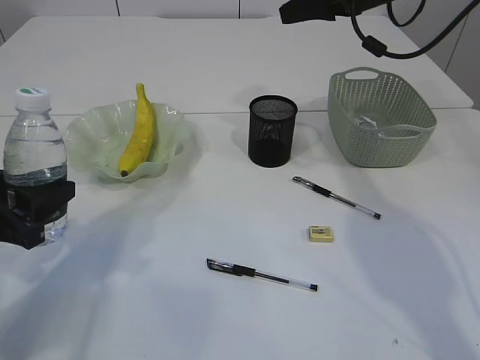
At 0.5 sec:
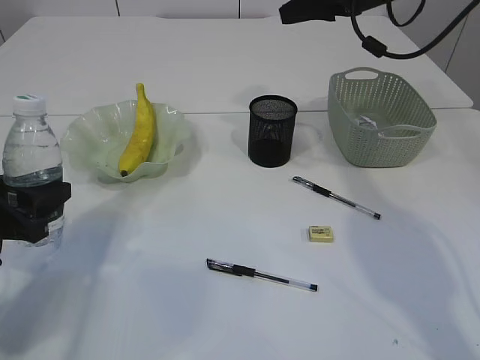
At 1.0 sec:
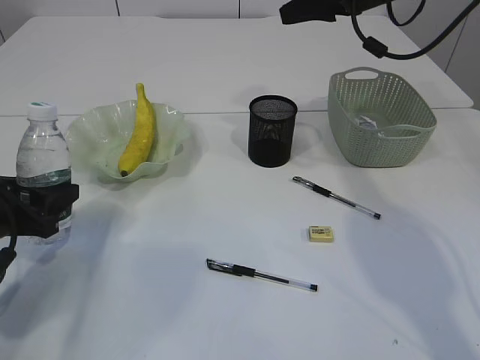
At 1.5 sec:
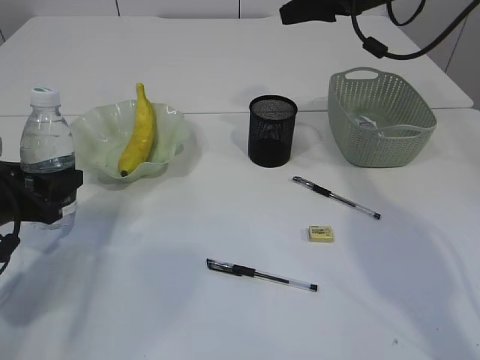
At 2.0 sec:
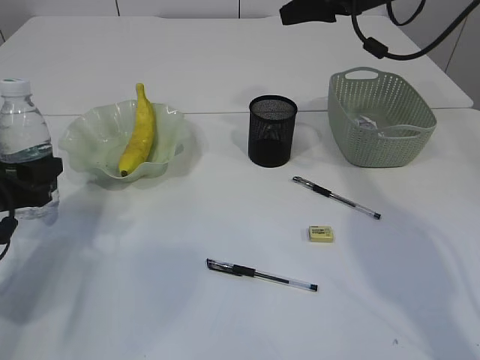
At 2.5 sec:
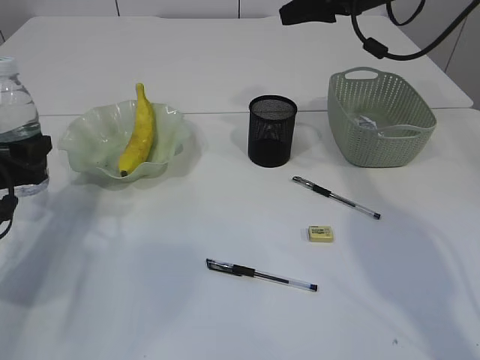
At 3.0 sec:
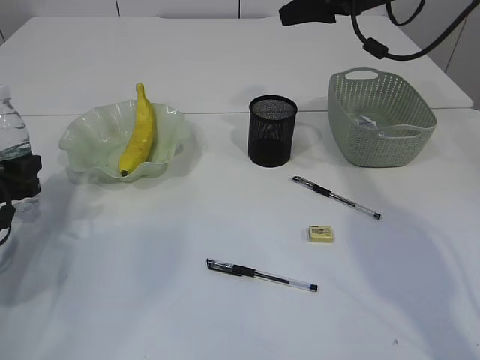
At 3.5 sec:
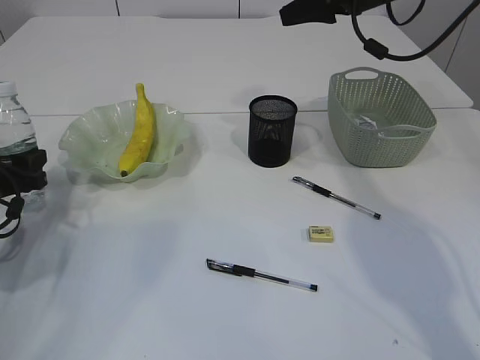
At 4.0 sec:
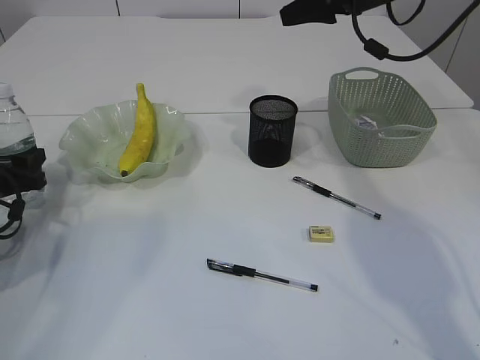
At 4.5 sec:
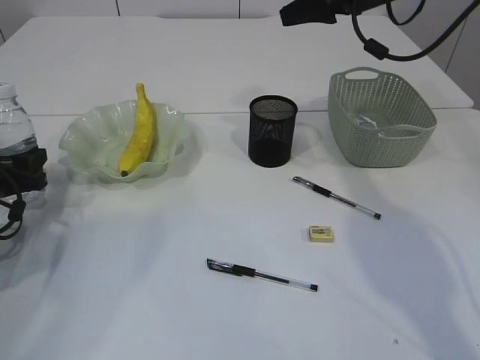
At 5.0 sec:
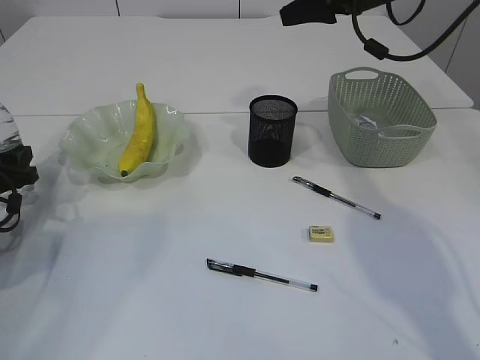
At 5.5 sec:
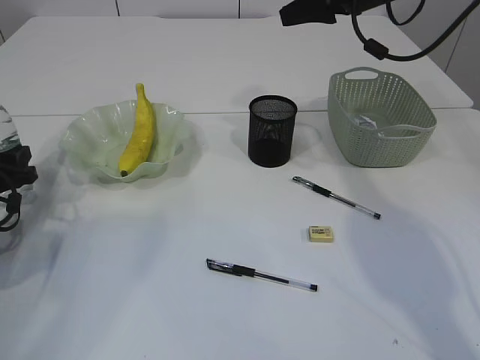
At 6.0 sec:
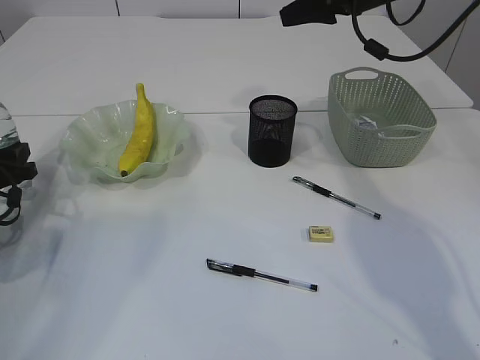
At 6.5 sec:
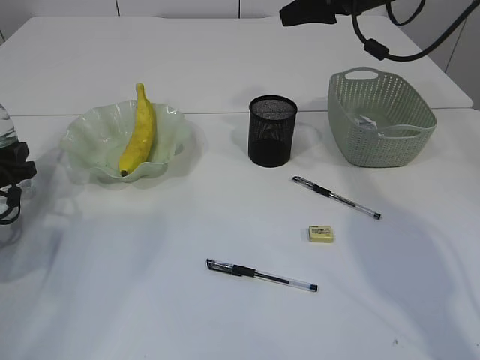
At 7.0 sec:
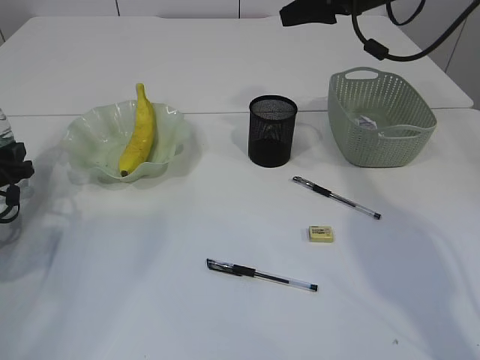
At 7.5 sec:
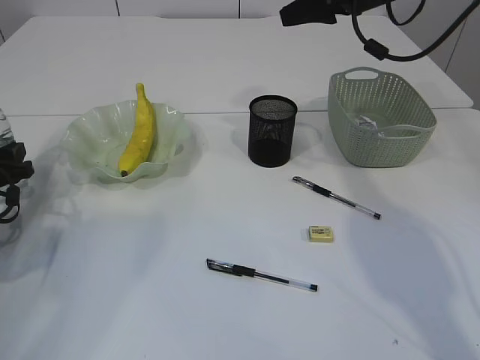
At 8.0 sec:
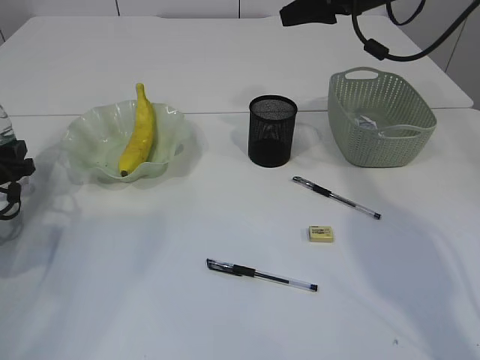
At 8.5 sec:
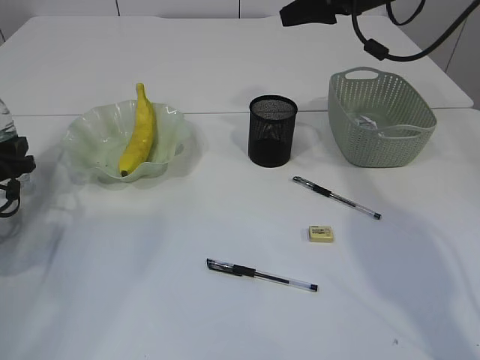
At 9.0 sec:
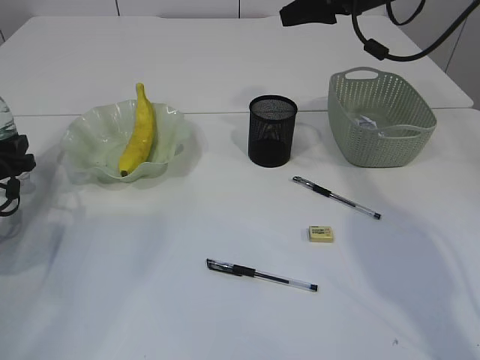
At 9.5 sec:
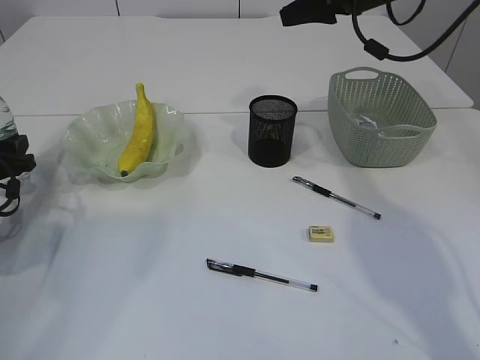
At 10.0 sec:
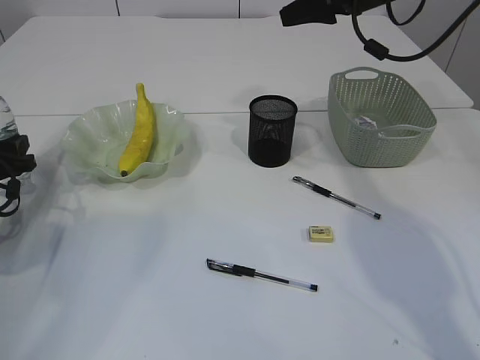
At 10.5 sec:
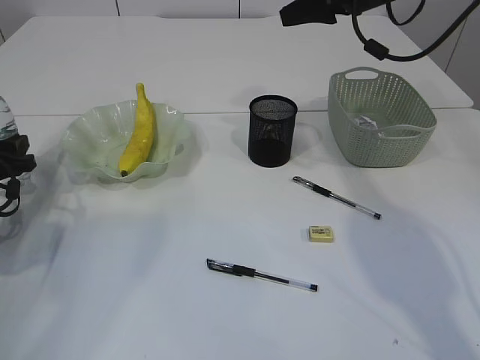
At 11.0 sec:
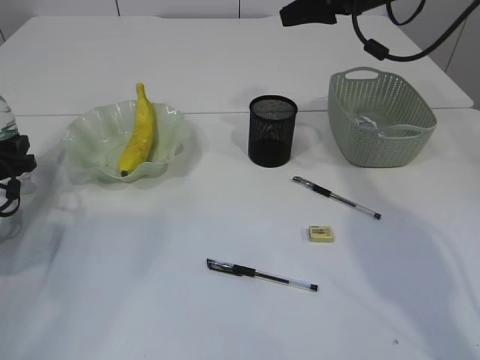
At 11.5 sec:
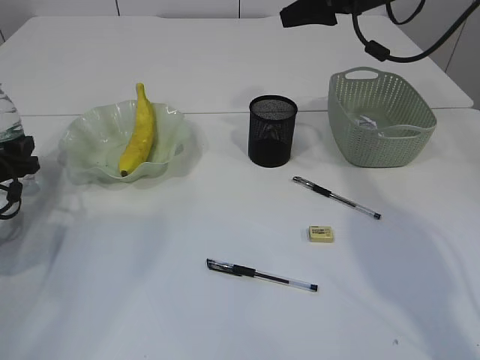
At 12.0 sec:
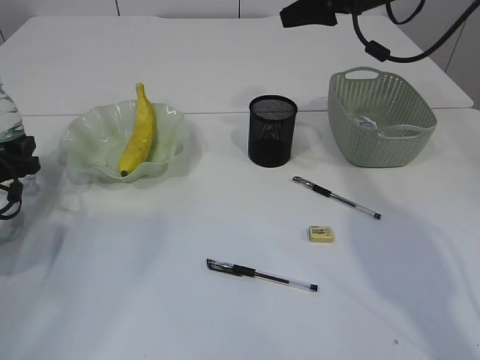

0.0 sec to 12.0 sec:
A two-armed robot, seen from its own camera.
0.0 sec to 2.0 sec: The left gripper shifts about 5 cm forward.
2.0 sec to 4.0 sec: The left gripper goes some 5 cm forward.
4.0 sec to 6.0 sec: There are only small adjustments of the grippers.
6.0 sec to 12.0 sec: Both grippers stay put.

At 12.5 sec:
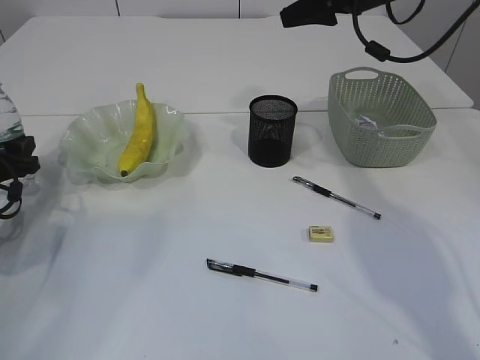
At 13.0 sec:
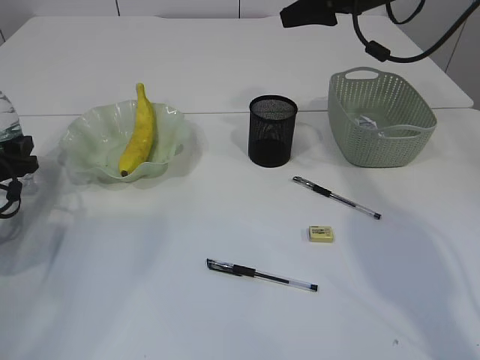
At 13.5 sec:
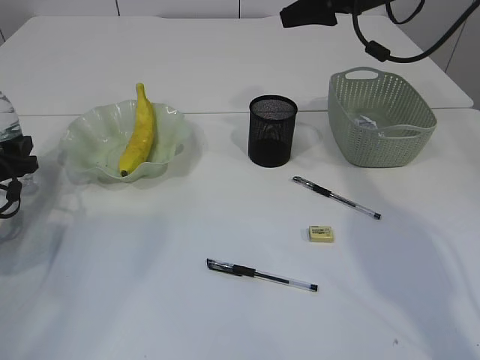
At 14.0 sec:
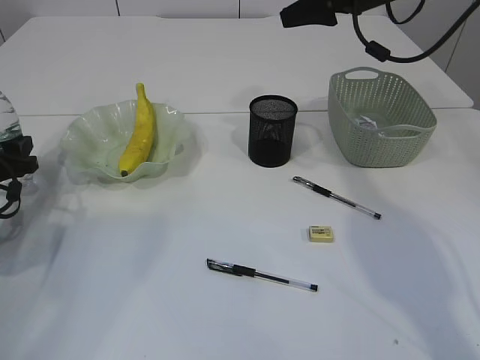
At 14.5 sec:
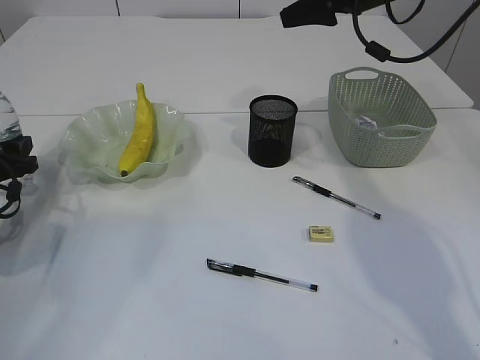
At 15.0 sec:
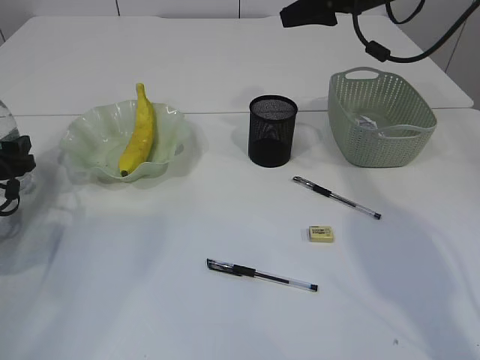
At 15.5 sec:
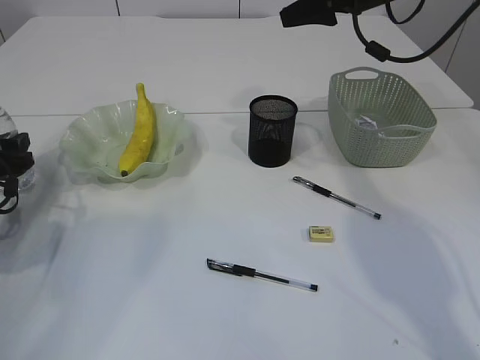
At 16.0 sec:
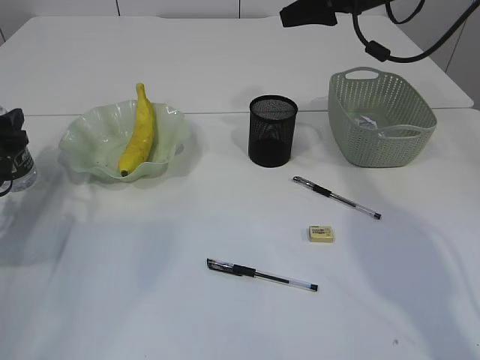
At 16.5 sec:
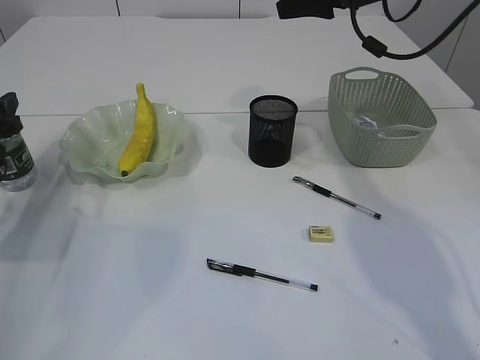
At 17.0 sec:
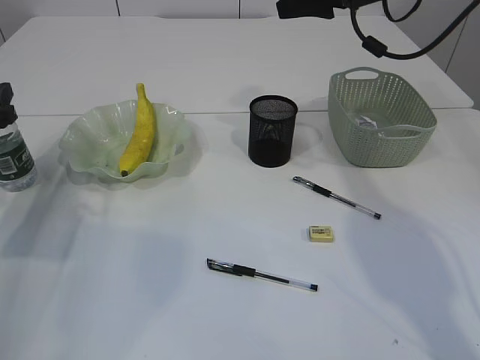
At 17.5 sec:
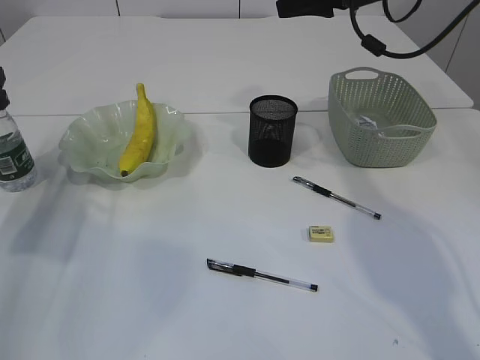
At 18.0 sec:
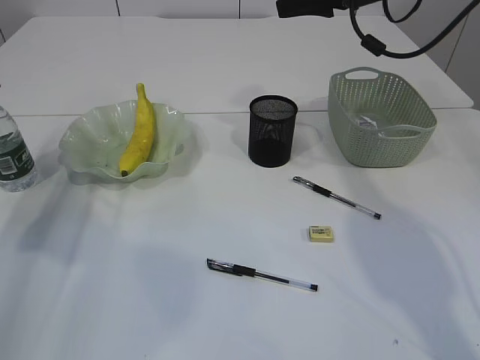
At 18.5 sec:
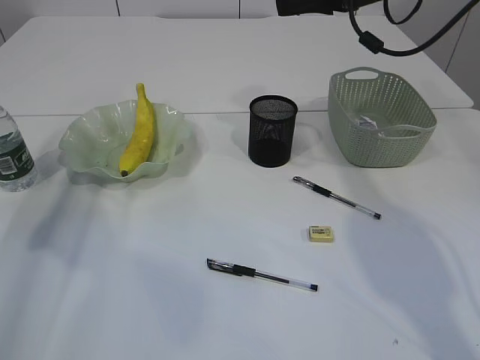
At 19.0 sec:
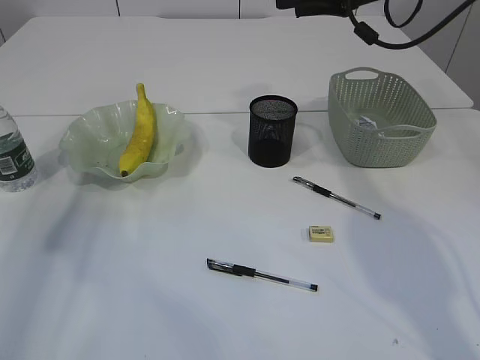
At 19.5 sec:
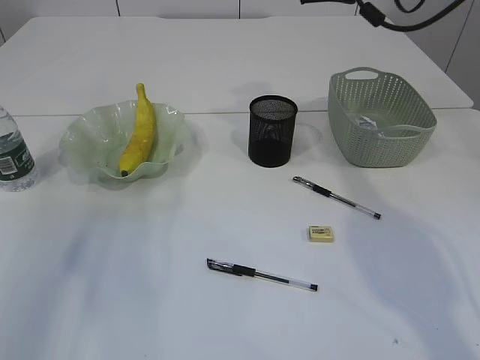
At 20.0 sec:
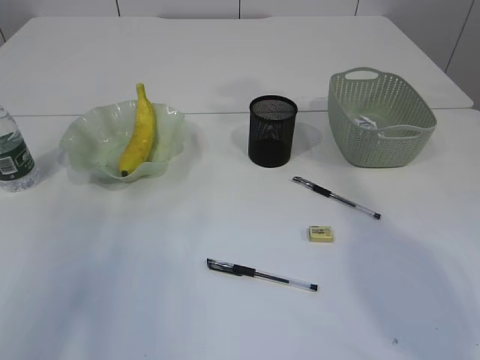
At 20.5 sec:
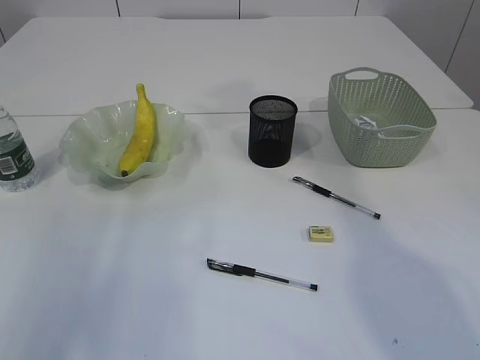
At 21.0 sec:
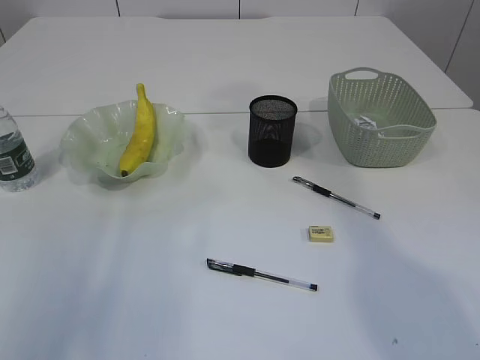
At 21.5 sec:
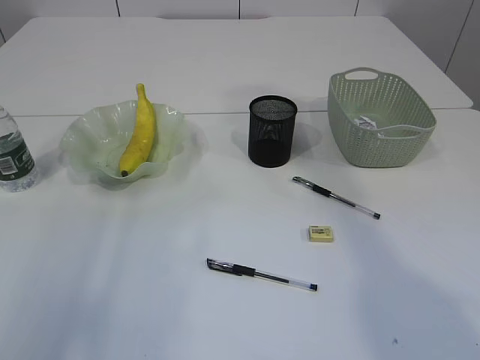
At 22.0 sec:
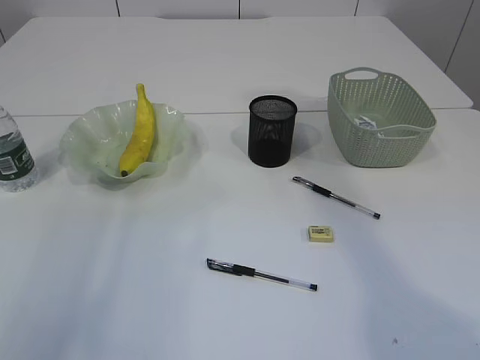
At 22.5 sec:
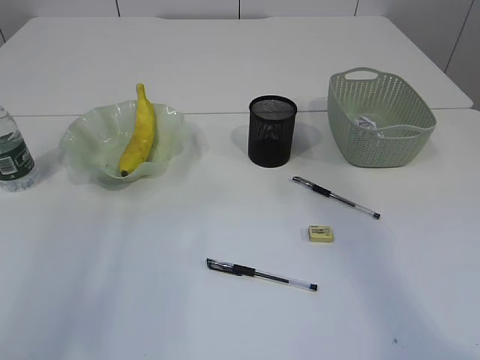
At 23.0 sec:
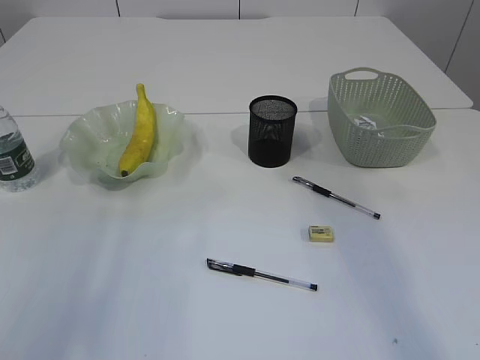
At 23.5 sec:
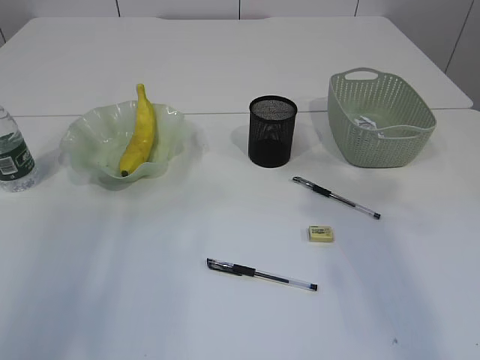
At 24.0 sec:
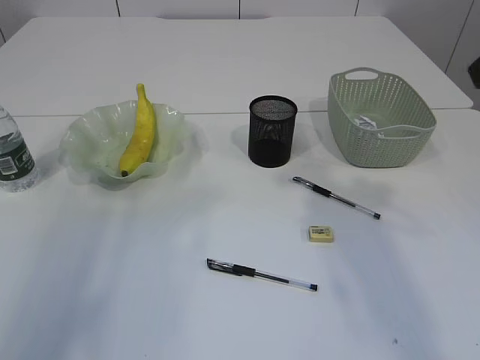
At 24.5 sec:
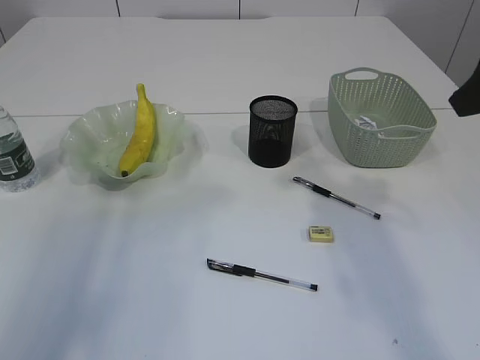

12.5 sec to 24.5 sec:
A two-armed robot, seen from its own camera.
Step, 12.5 sec to 17.5 sec: Place the bottle.
12.5 sec to 14.5 sec: The two grippers keep their place.
14.5 sec to 16.5 sec: The left gripper heads upward, covering some 5 cm.
16.5 sec to 18.5 sec: The left gripper moves upward, some 10 cm.
18.5 sec to 20.5 sec: Both grippers travel together upward and backward, approximately 25 cm.
22.5 sec to 24.5 sec: The right gripper is displaced downward by about 20 cm.

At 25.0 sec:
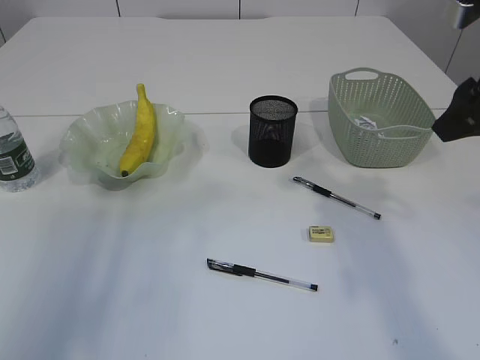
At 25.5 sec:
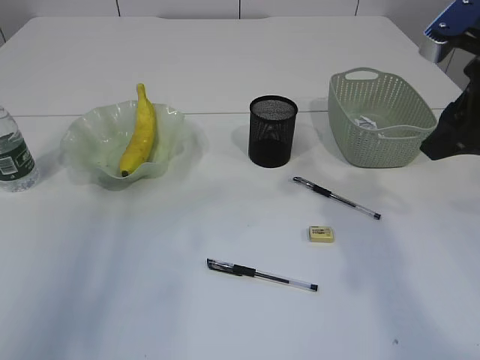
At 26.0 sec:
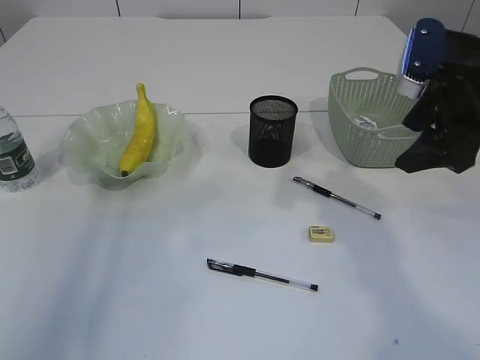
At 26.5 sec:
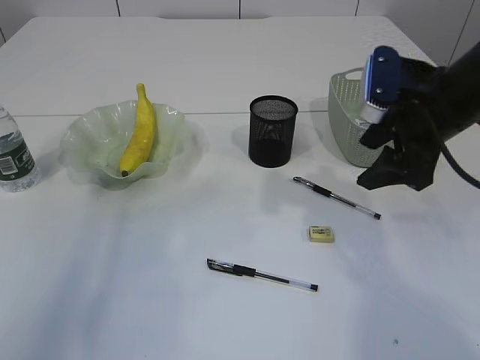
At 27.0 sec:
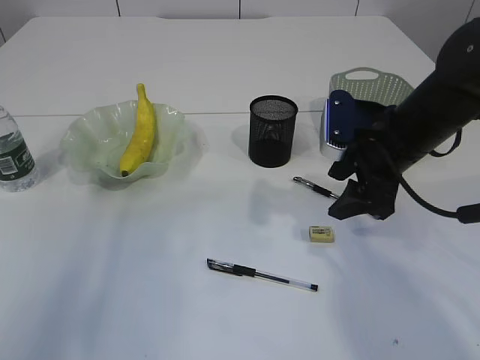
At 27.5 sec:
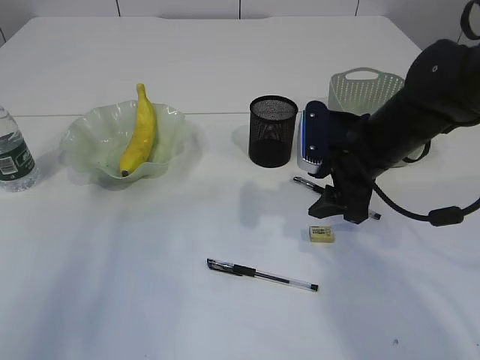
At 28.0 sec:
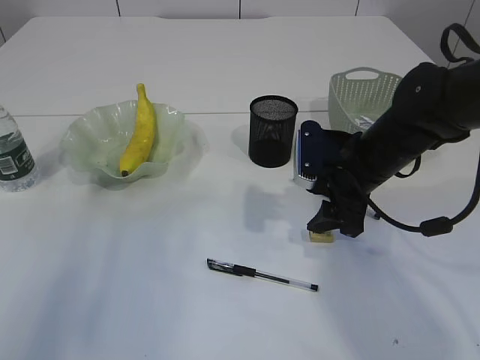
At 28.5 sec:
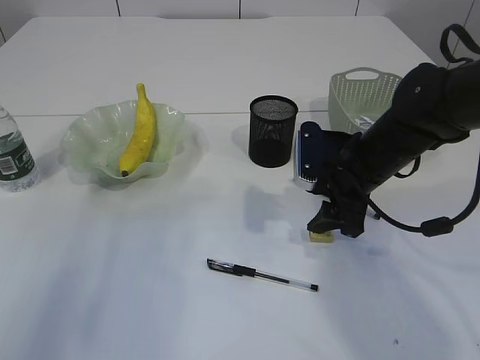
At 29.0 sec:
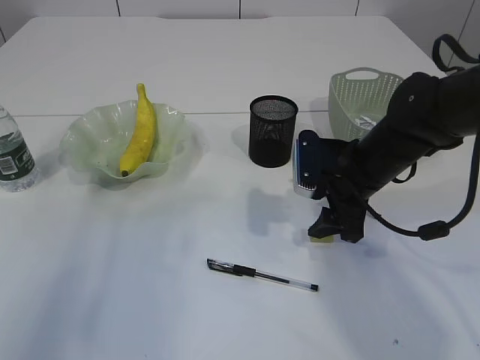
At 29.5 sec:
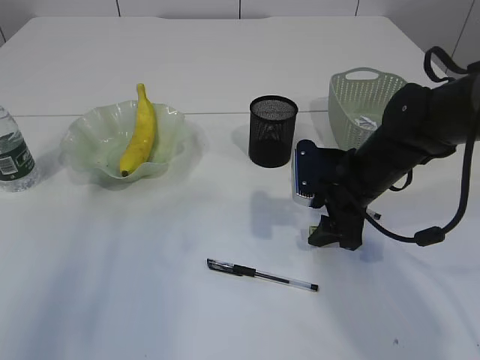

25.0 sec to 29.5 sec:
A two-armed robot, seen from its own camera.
25.0 sec to 27.0 sec: The right gripper goes about 15 cm downward, to the left and forward.
27.0 sec to 29.5 sec: The right gripper heads downward, covering about 5 cm.
